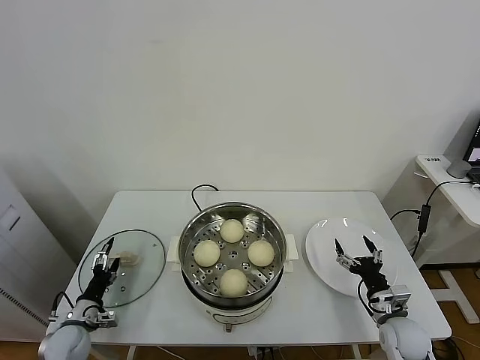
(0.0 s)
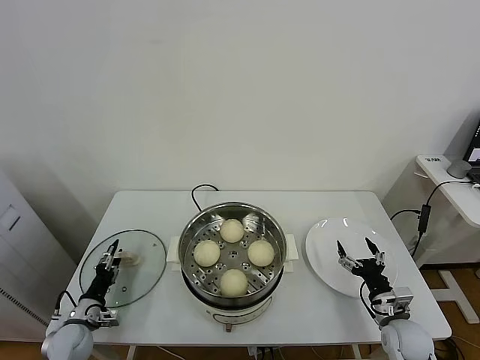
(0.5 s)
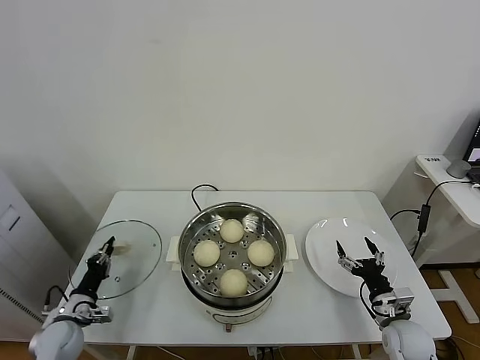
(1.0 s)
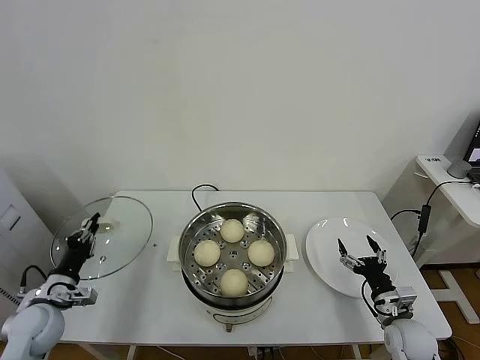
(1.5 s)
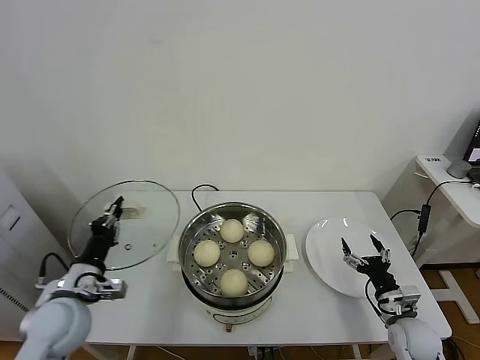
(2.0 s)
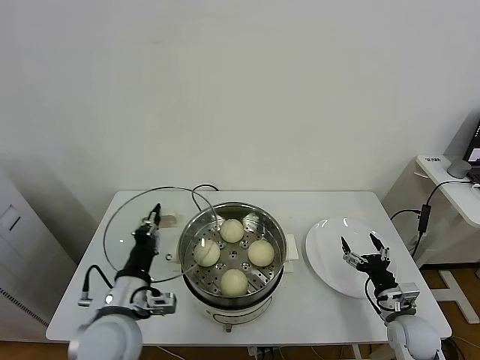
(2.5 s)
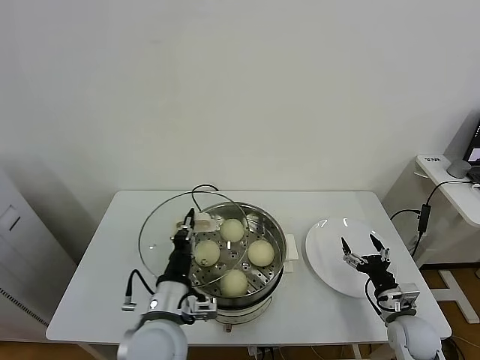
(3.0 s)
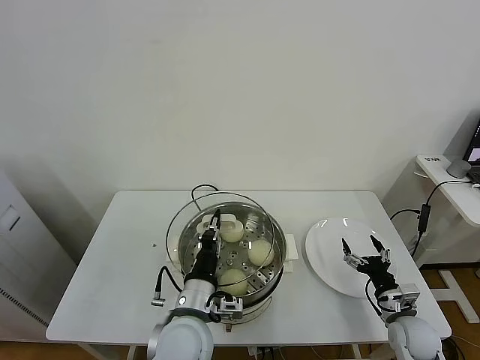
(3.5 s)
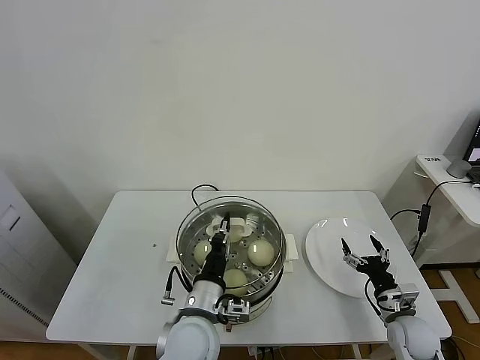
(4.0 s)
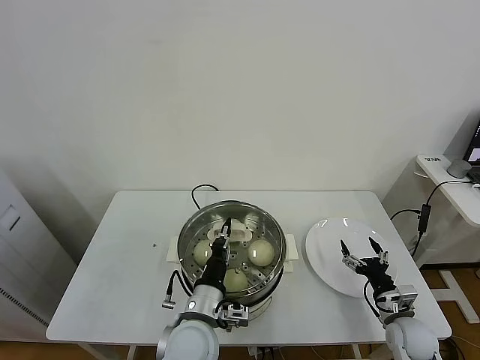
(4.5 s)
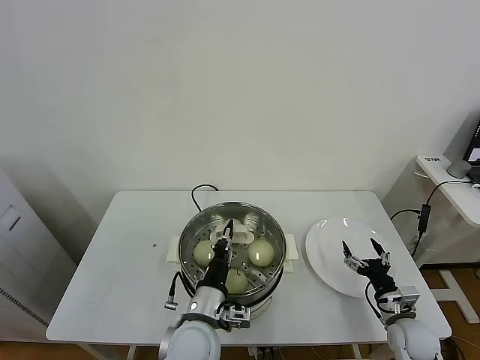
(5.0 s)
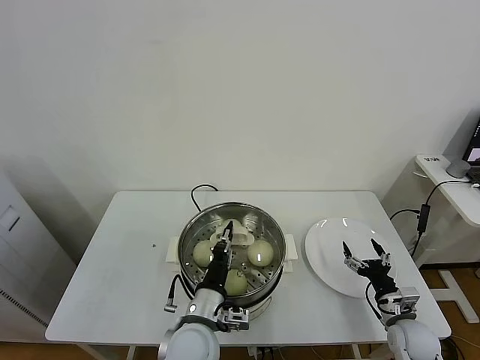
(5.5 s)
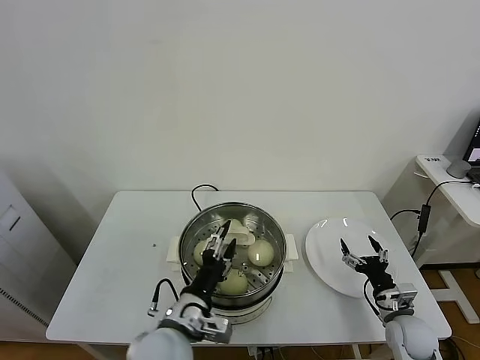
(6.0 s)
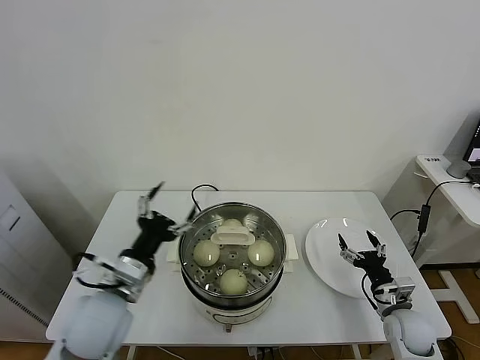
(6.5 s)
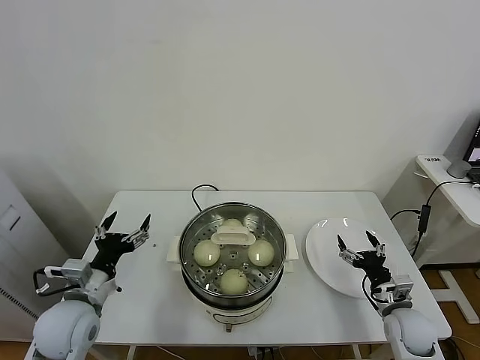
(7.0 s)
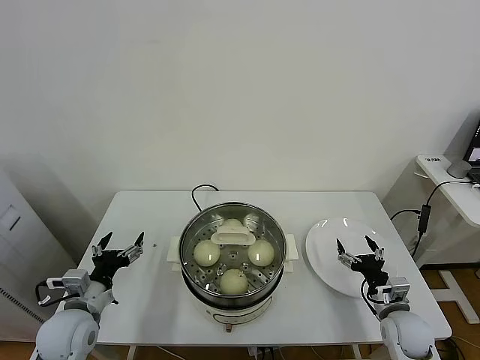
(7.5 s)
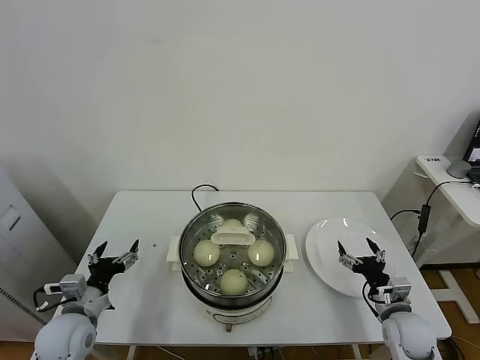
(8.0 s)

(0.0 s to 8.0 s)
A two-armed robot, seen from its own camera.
Task of the whole recording: take steamed baozi put them in steamer.
Step, 1.5 s - 6.0 s: Place the pot lid on the steamer with left gripper.
0.0 s - 2.0 s: The left gripper heads upward and to the right, covering roughly 20 cm, and closes up.
2.0 s - 4.0 s: The left gripper travels to the right by roughly 25 cm.
4.0 s - 6.0 s: The left gripper opens.
6.0 s - 8.0 s: The left gripper is displaced to the left by roughly 20 cm, and opens.
